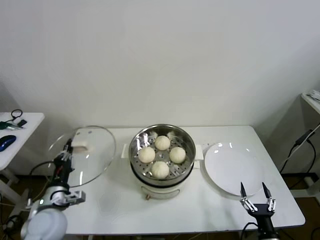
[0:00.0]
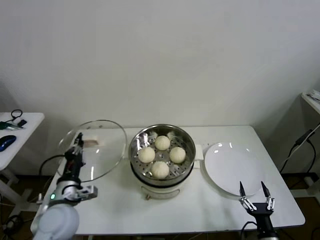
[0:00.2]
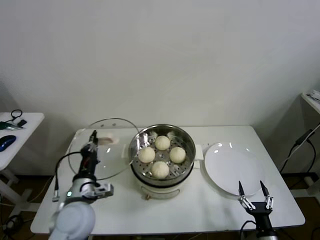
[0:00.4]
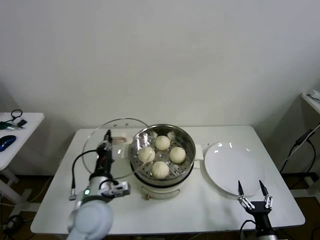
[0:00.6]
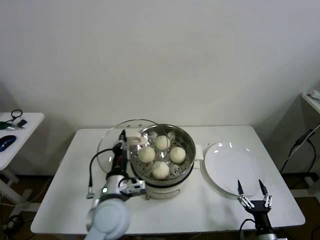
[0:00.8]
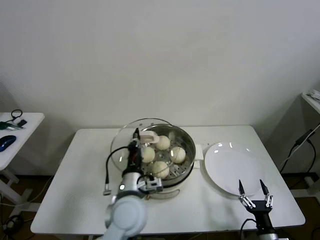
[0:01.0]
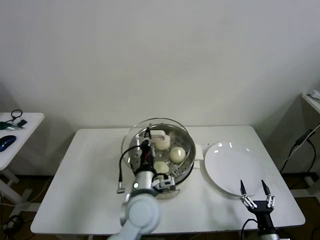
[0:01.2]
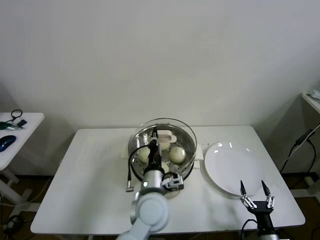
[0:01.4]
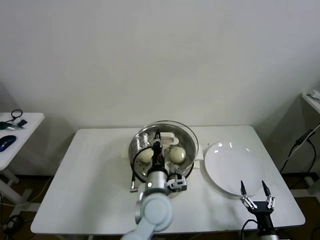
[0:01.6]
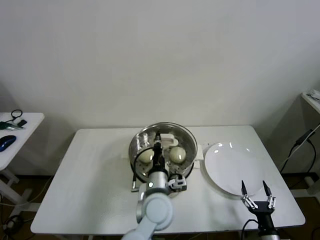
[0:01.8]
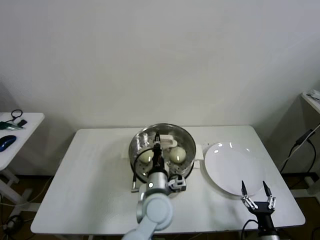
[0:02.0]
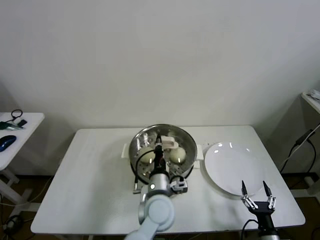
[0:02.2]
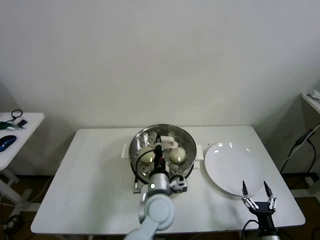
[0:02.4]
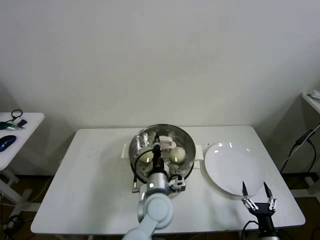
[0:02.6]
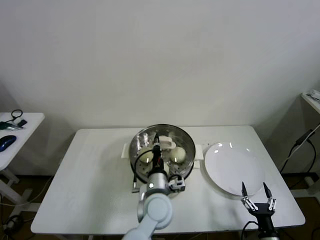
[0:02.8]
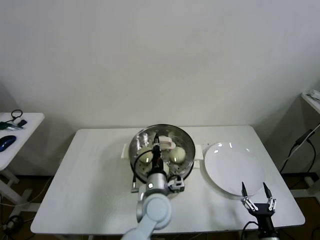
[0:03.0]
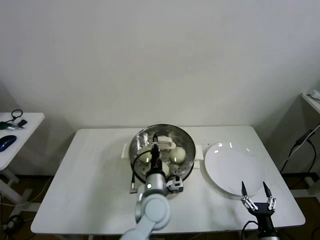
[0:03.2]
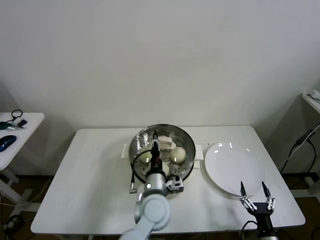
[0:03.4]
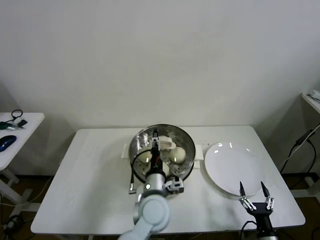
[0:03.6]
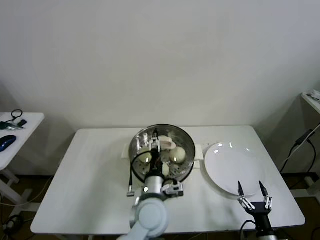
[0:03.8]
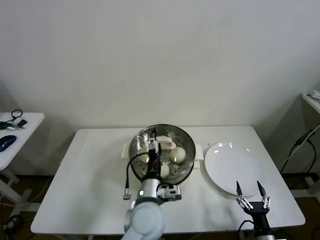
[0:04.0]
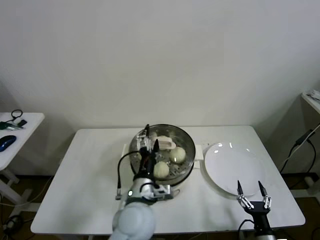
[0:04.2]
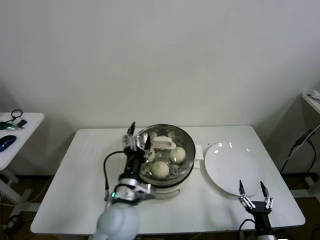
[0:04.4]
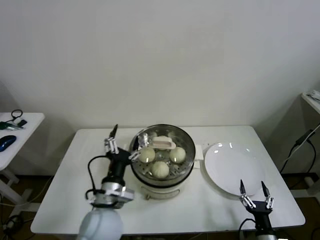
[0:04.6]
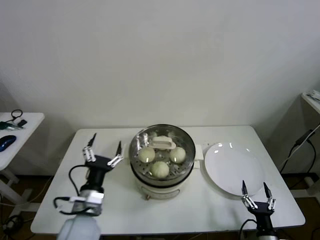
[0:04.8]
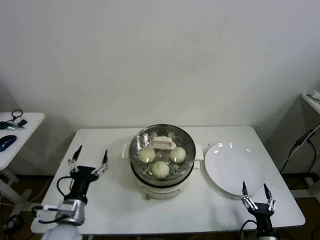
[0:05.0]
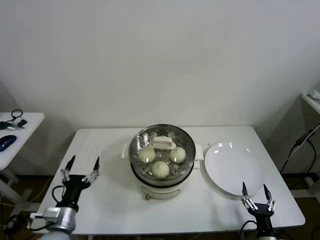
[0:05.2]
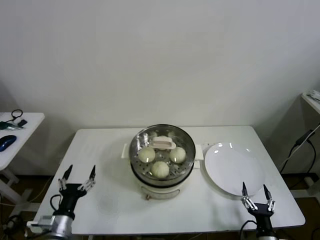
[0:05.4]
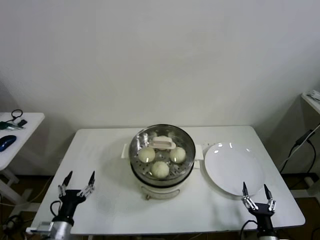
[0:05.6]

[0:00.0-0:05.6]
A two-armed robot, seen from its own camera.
Step, 0:00.0 to 0:03.2: Place the pot lid on the steamer with left gripper.
0:00.0 to 0:01.4: The left gripper goes roughly 30 cm to the right.
0:01.4 to 0:02.8: The left gripper ends up about 5 cm from where it was.
0:02.8 to 0:04.2: The left gripper ends up some 5 cm from where it was, and opens up.
0:04.2 to 0:05.6: The left gripper heads to the left and downward, covering approximately 30 cm.
